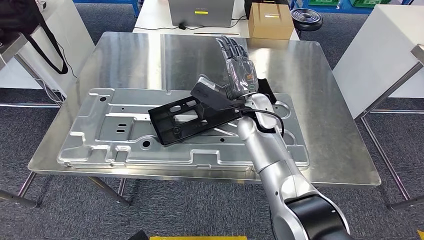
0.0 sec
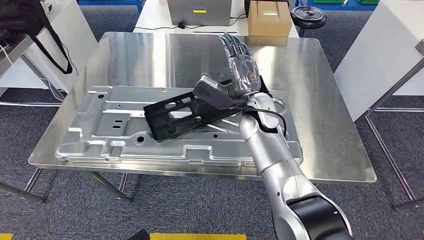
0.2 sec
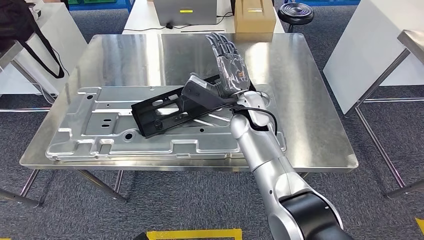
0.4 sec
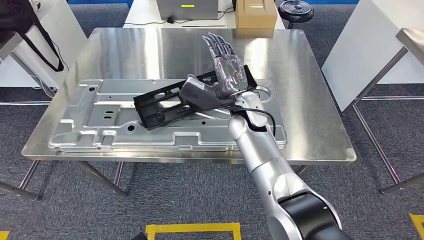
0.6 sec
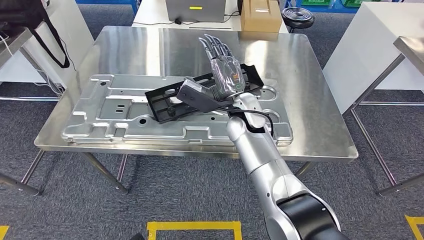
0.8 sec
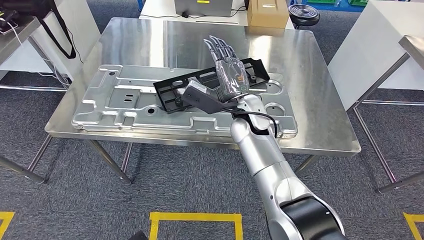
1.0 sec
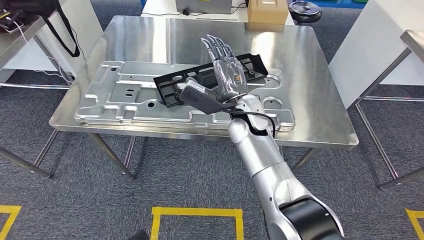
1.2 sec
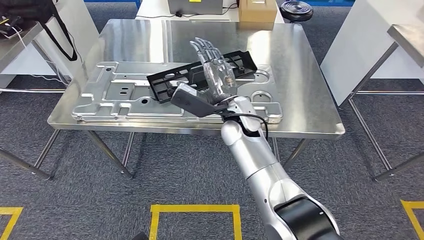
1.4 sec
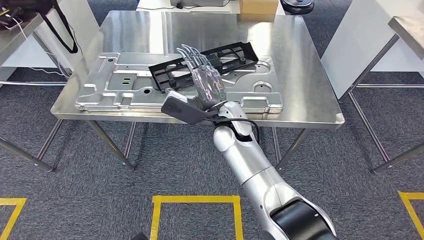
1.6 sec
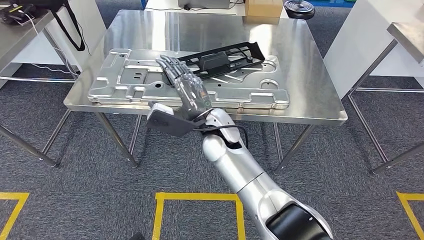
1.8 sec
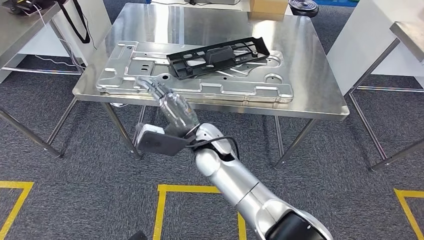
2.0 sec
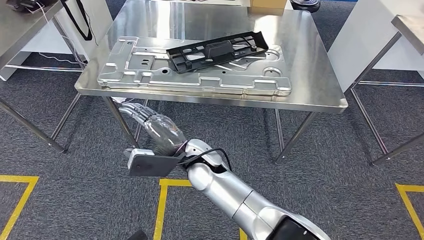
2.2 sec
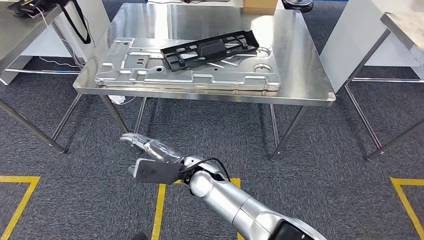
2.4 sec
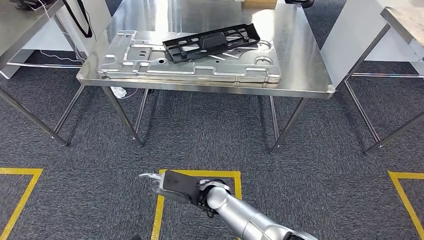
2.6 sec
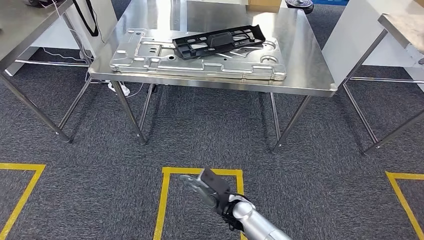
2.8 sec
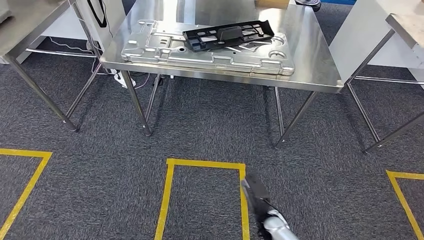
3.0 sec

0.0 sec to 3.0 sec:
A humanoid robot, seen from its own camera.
Step, 0.0 sec to 3.0 sec: Move to the initial position of the shelf.
